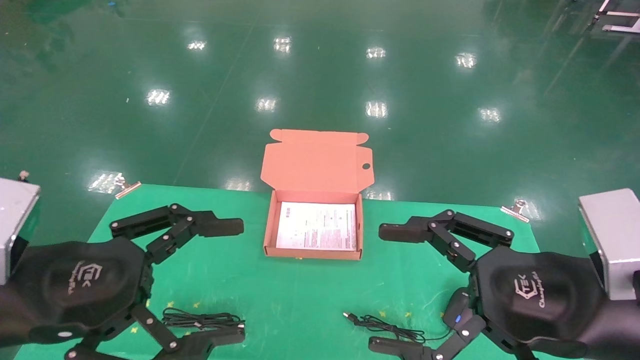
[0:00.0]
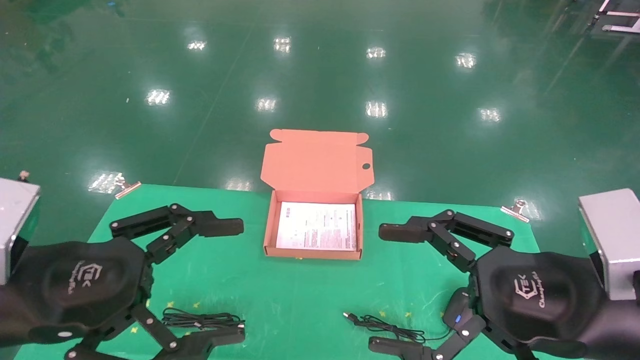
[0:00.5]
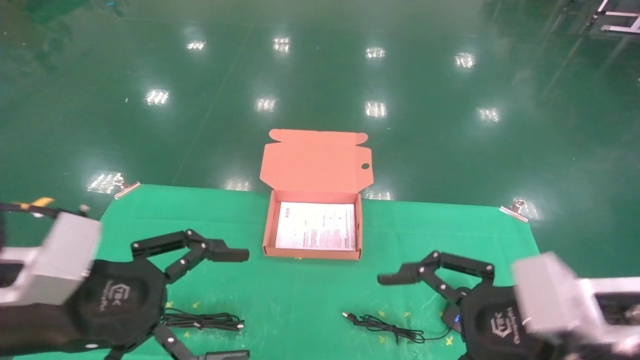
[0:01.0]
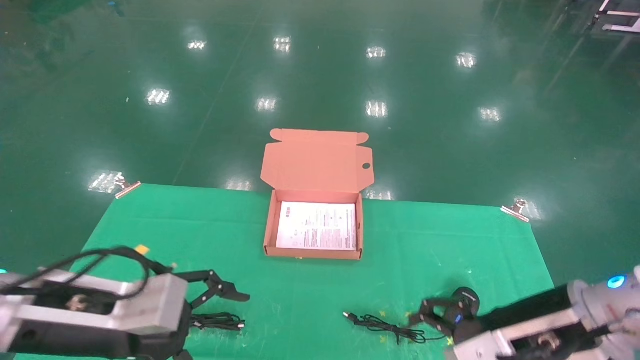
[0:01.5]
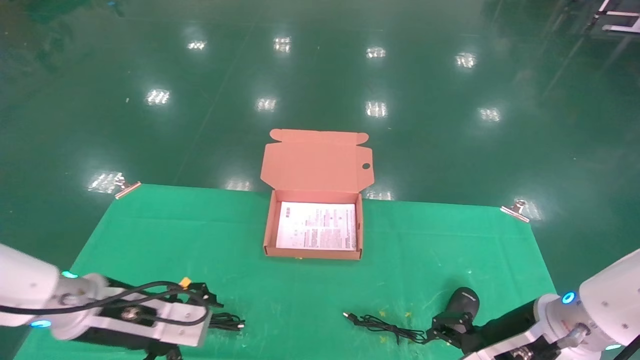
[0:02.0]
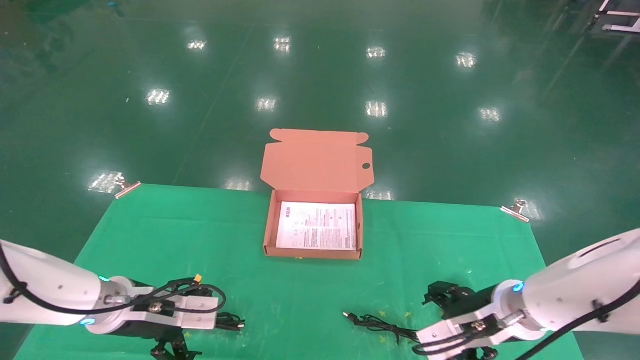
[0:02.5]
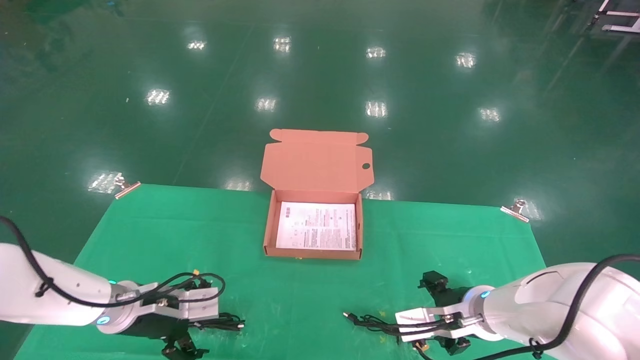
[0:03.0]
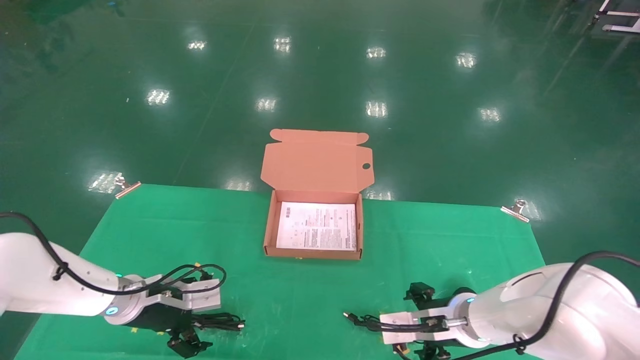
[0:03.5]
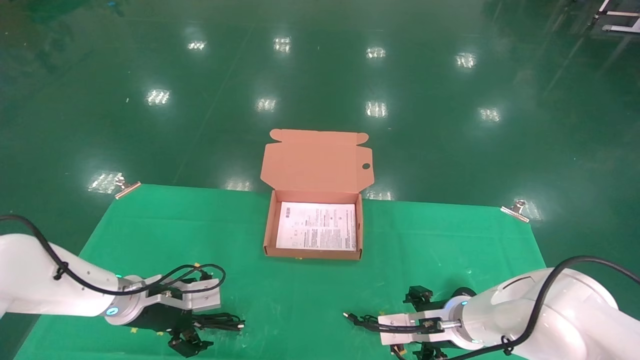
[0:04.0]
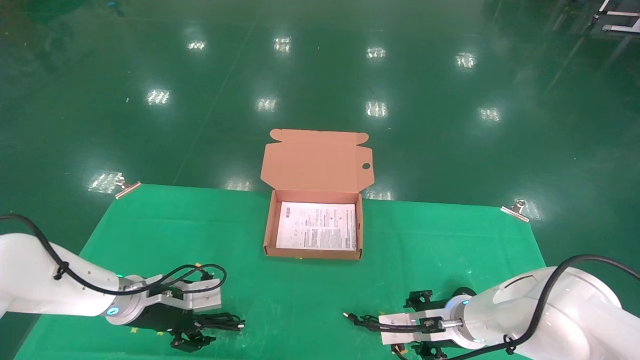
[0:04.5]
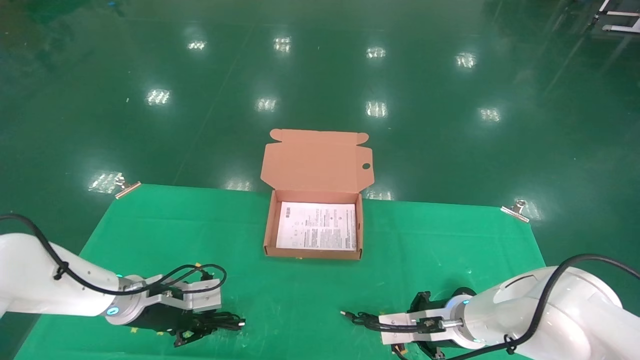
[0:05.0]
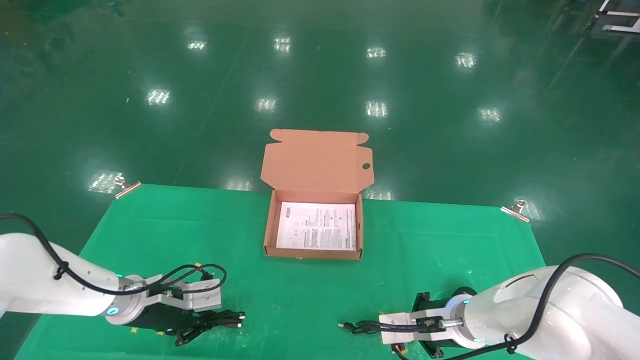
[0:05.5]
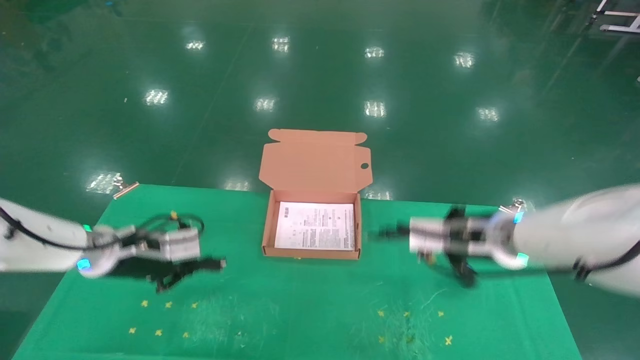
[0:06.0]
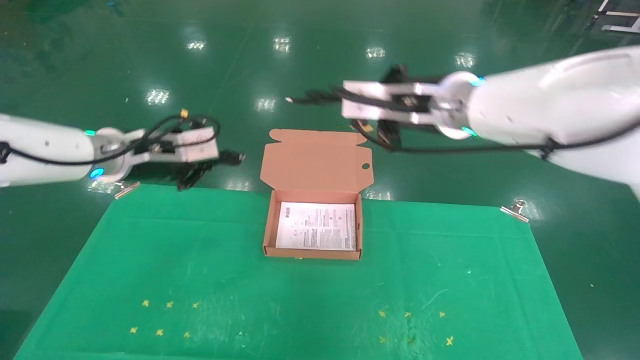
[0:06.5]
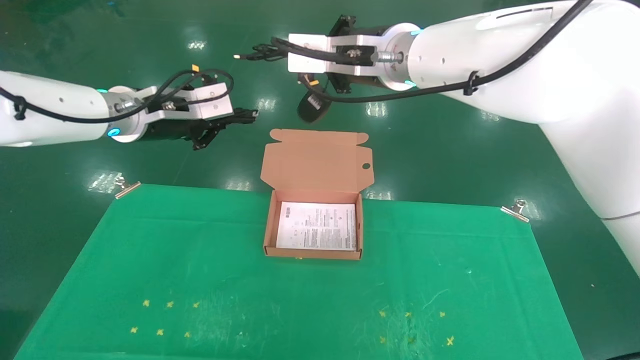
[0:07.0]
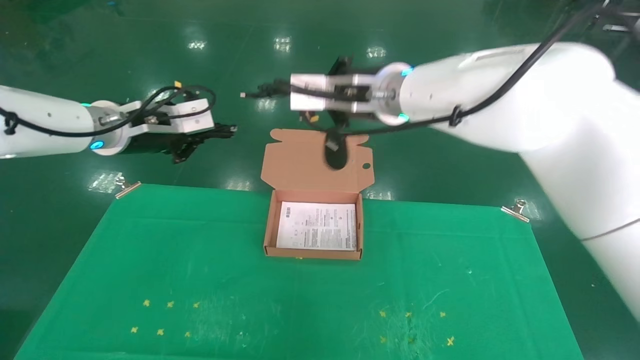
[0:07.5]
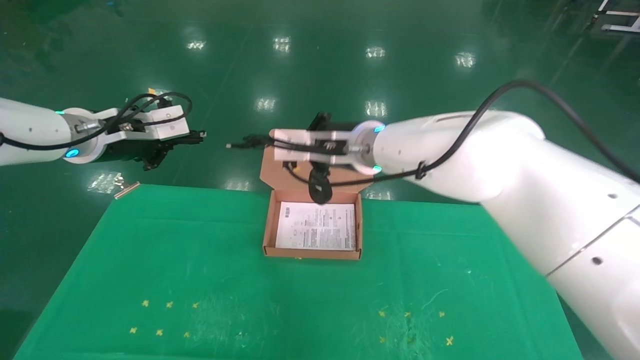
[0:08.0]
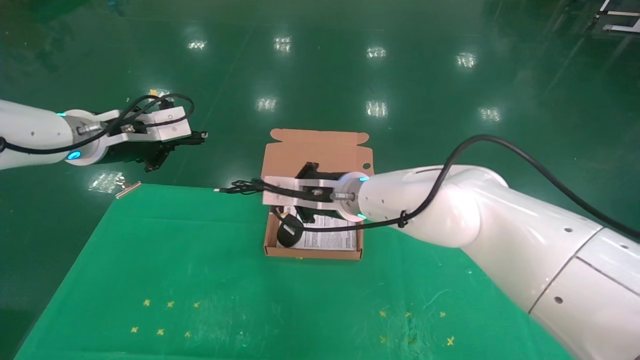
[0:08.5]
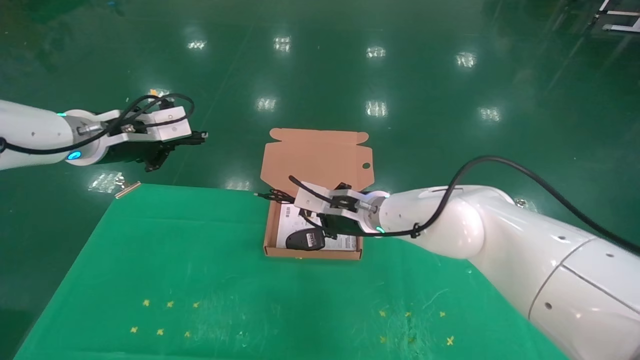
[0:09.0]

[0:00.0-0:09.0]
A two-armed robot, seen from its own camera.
Task of the whole recording: grasp data cable left put into box grasp mouse right put into box.
Step, 0:01.5 to 0:05.0: Grab and pick up both the mouse and power cord from the accessory packaging area at the same time.
0:00.0 to 0:02.0: The grippers both shift forward and downward by about 15 cm.
0:02.0 to 0:04.5: The left gripper goes some 10 cm forward and downward; the right gripper goes about 15 cm forward, downward and to the left.
0:04.5 to 0:07.0: Both grippers travel together upward, about 30 cm. The right gripper closes its fingers. Meanwhile the left gripper closes its fingers.
0:07.0 to 0:09.0: The left gripper moves to the left, roughly 5 cm. The right gripper shifts some 20 cm downward.

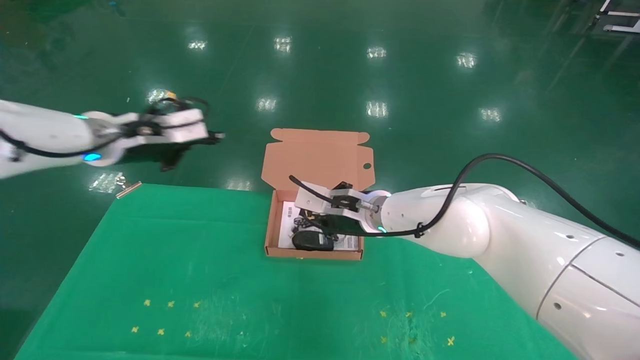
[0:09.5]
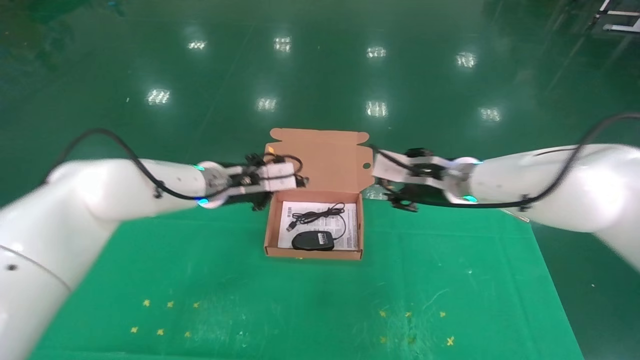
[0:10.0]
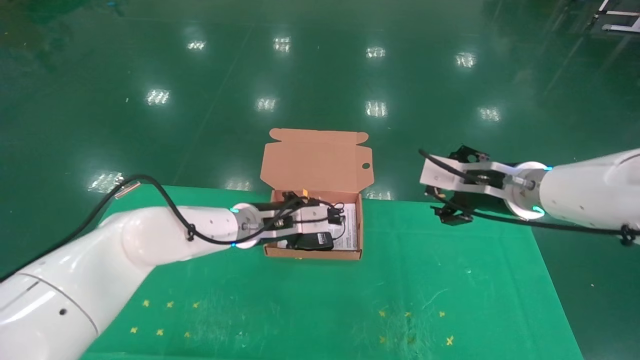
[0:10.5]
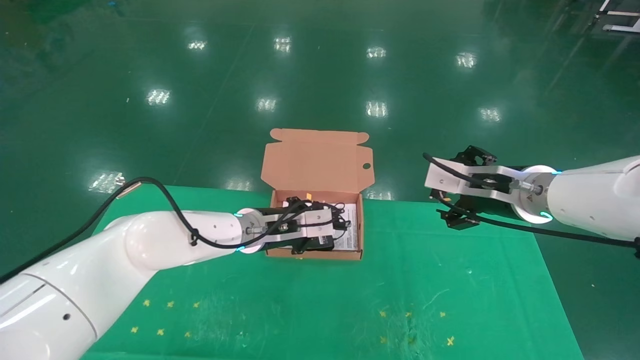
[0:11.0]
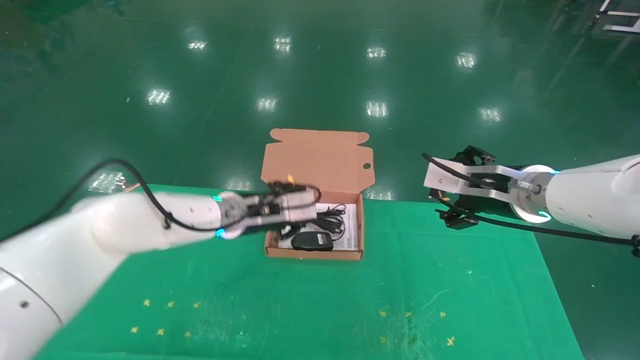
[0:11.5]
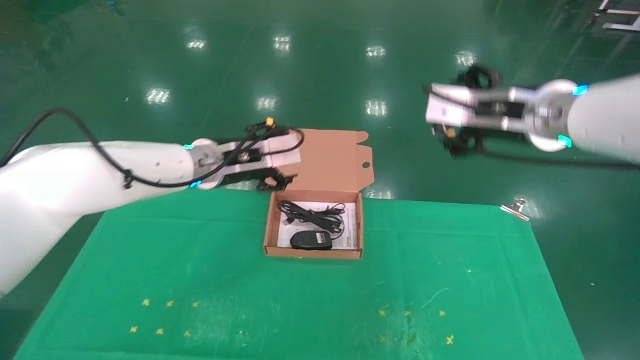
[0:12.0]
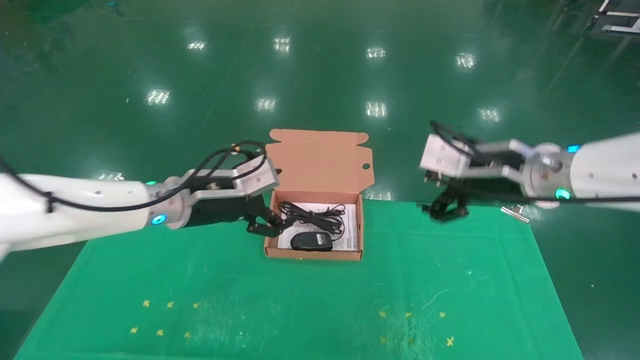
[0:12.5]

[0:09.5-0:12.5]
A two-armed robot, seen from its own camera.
Task of the whole recording: grasp data cable left put into box grasp mouse right put into box.
Step, 0:09.5 to 0:11.5: Place the mouse and power cord into the box.
0:09.5 to 0:11.0: The right gripper shifts about 20 cm to the right and backward, and opens. The left gripper goes about 25 cm to the right and downward.
0:11.0 to 0:12.5: The right gripper goes upward and returns, some 10 cm each way; the left gripper shifts about 15 cm to the left, backward and upward, and opens up.
